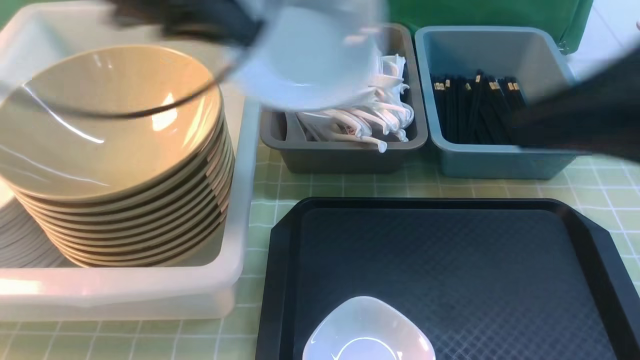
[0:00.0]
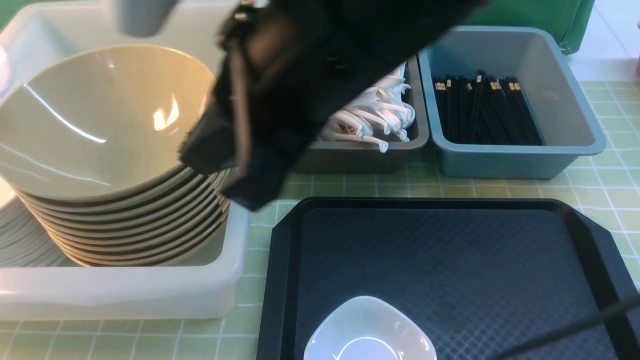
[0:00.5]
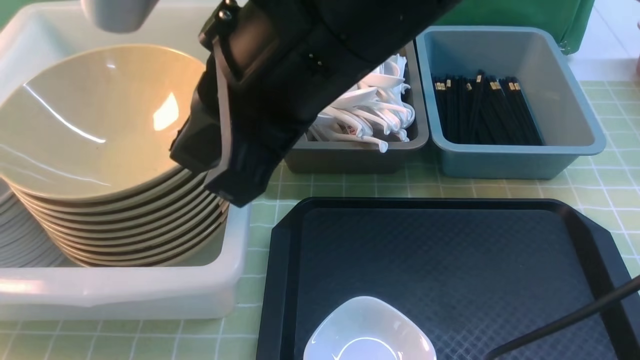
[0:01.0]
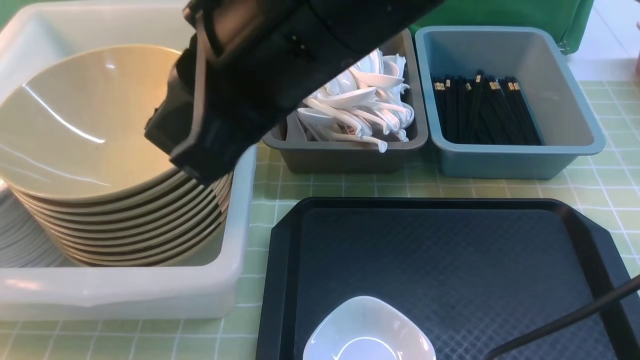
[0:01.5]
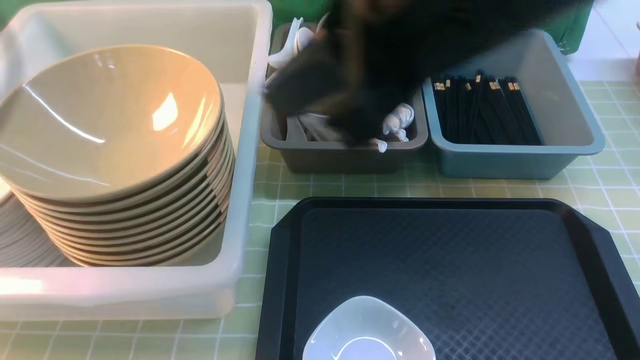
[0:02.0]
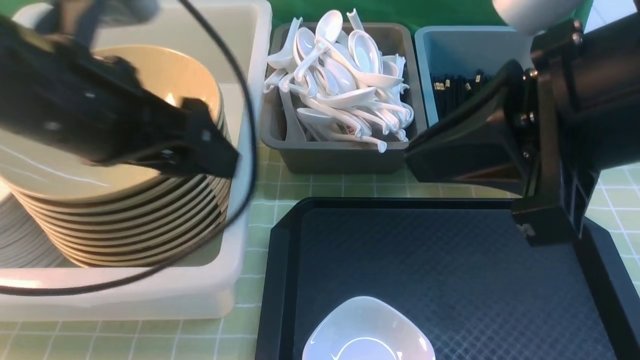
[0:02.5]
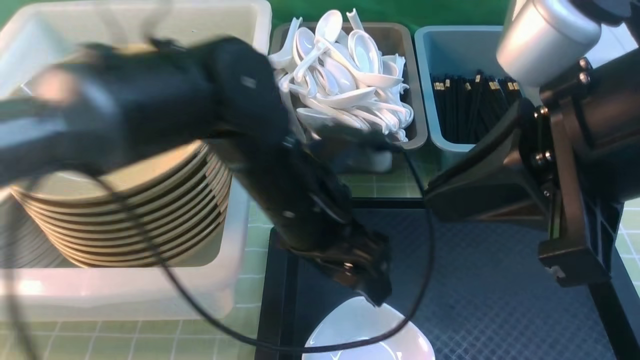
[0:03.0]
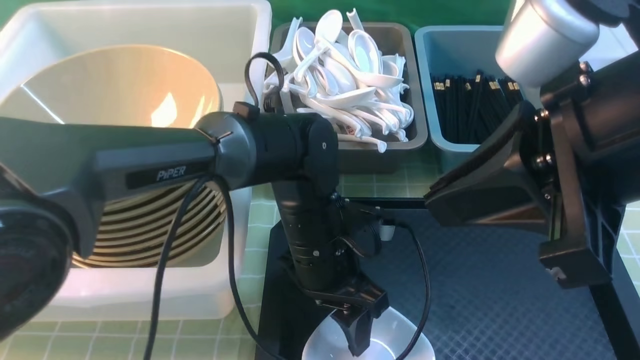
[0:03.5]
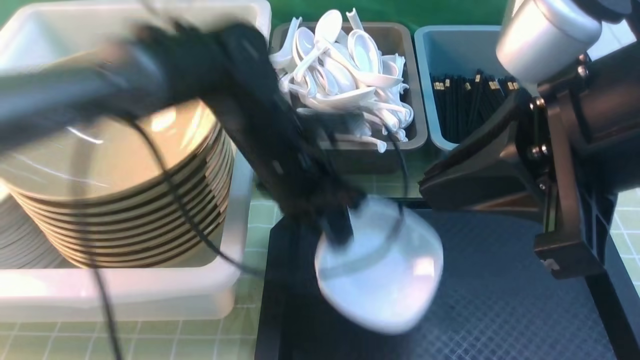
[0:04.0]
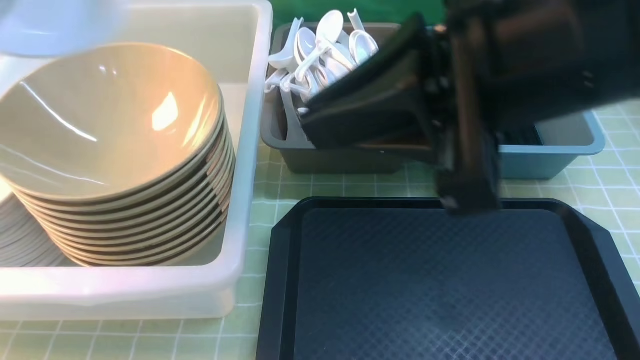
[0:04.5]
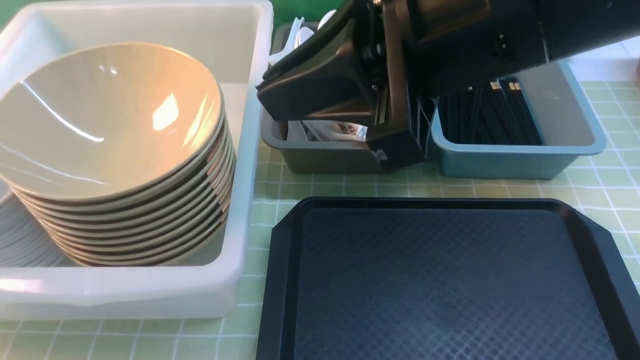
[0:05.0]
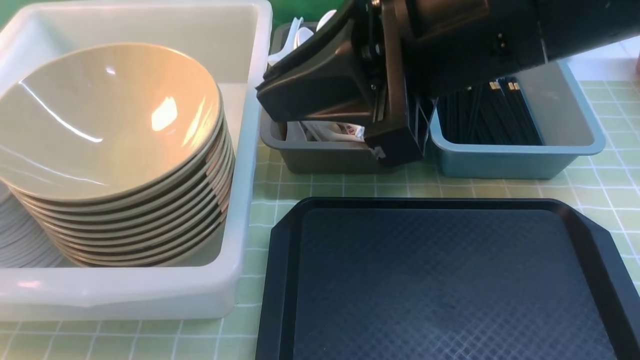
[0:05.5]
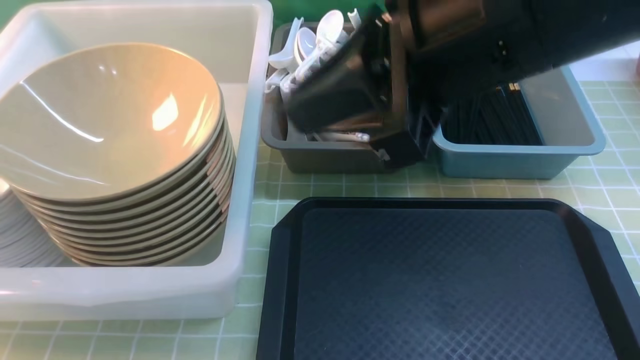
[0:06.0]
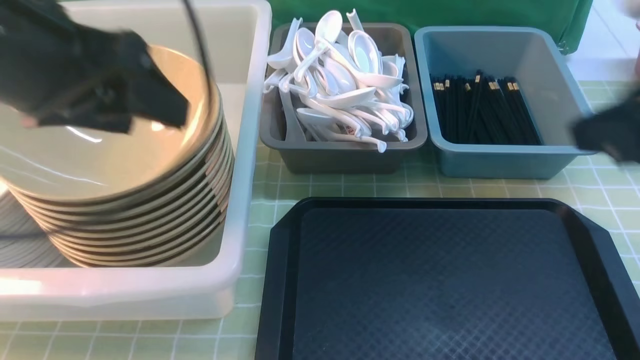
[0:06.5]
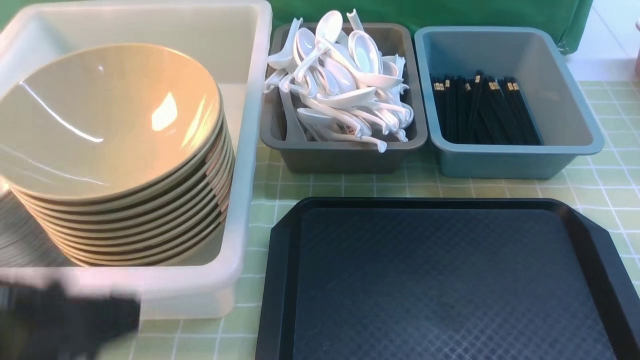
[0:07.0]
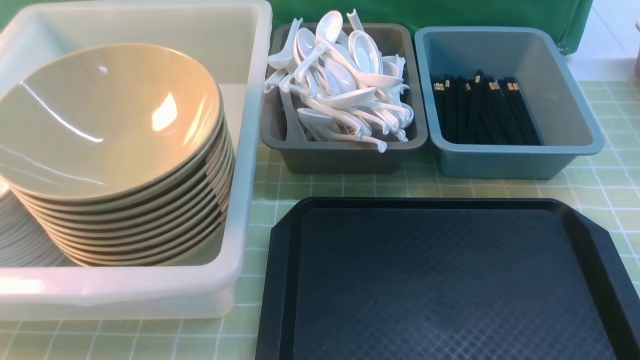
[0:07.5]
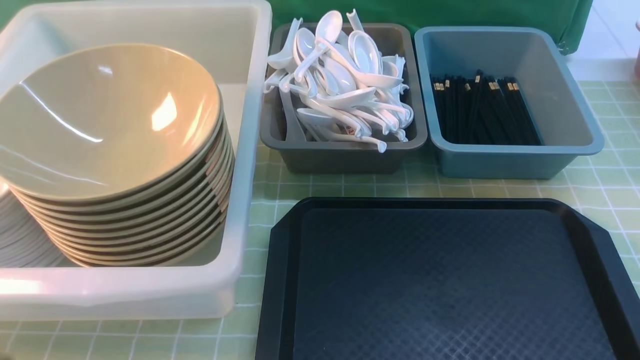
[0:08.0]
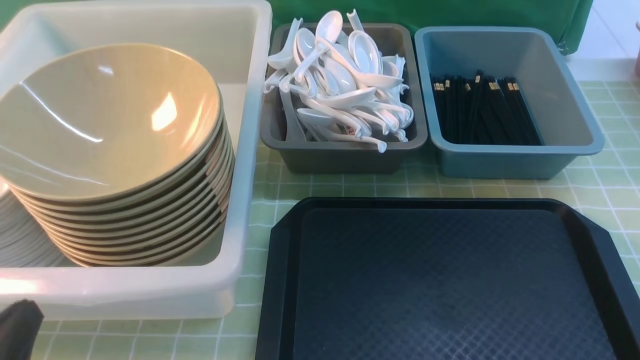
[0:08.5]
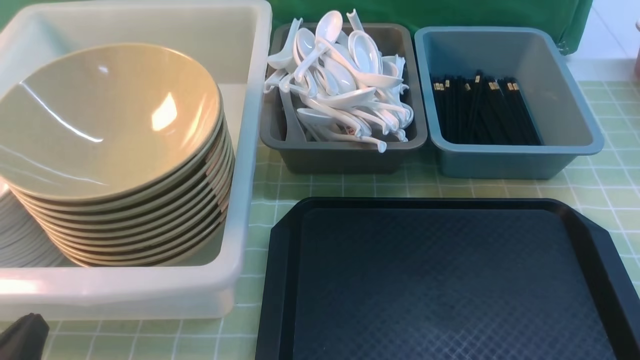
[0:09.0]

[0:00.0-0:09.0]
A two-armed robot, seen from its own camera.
Task of the whole recording: on green table put chopsticks spoon bowls plates into blue grey white boxes.
Step, 0:00.0 to 0:01.5: use the left arm to put the plate into the large storage box on the left.
Step, 0:02.0 to 0:03.5: use the left arm to grab the plate.
Step, 0:04.0 to 0:06.0: use the left arm to put the plate into the large storage box on the left.
0:00.0 to 0:02.0: The left gripper travels backward by some 10 cm, goes to the left and returns, some 25 cm each way, and opens up. The right gripper is displaced to the left by approximately 10 cm.
0:02.0 to 0:04.5: The left gripper shifts approximately 5 cm forward, reaches some 30 cm to the right, then returns, and closes.
0:04.5 to 0:07.0: The left gripper is displaced backward and to the right by some 25 cm, and opens, then closes again, while the right gripper travels to the right, downward and backward by roughly 30 cm.
0:07.0 to 0:09.0: The left gripper shifts some 20 cm downward.

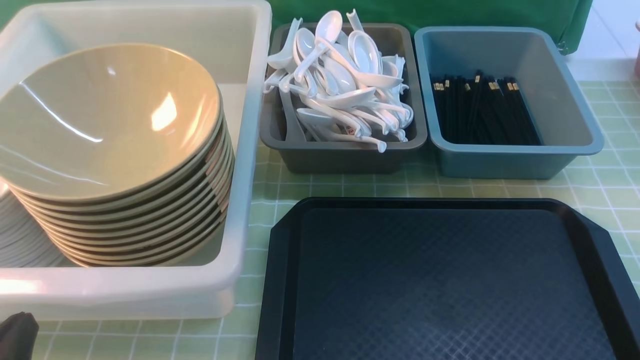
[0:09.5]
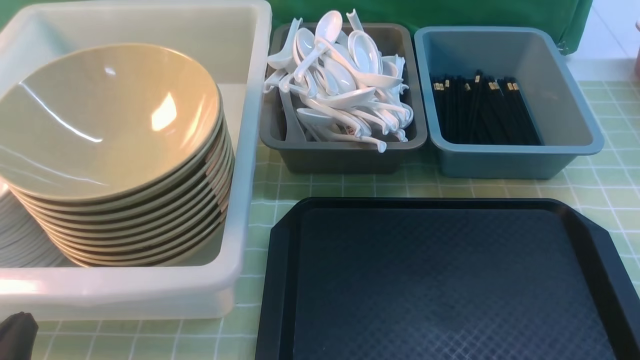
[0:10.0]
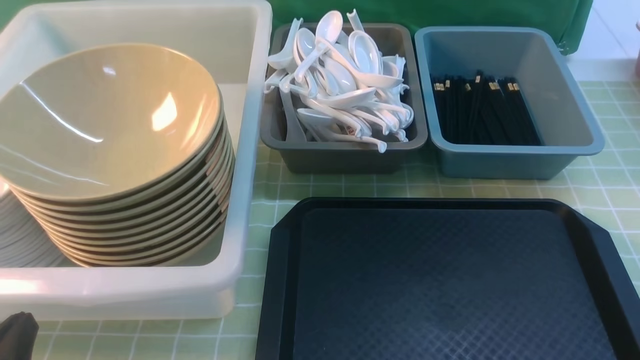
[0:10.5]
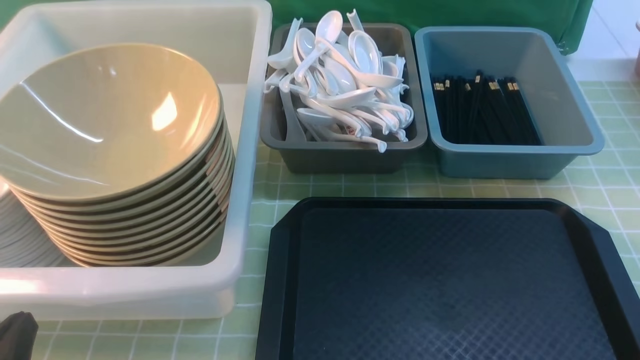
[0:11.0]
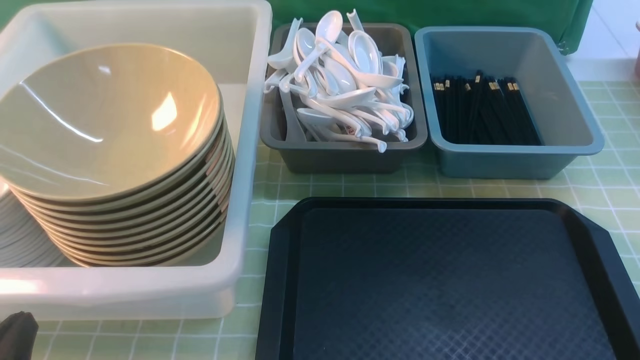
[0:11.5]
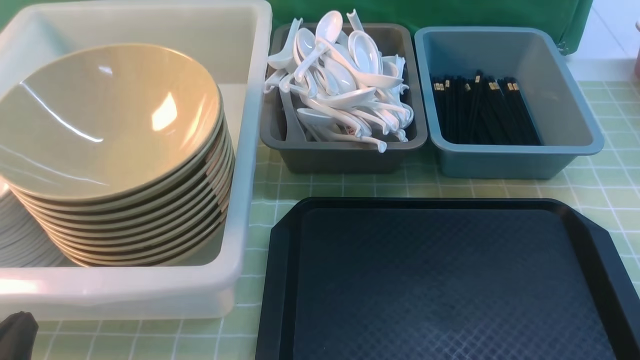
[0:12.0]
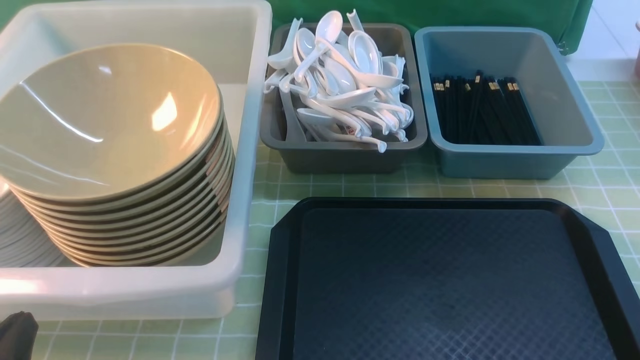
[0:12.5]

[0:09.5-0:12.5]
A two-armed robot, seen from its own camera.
Task of the whole recording: on green table put chopsticks spoon bowls plates into blue grey white boxes.
0:11.0 to 0:12.5: Both grippers stay put.
